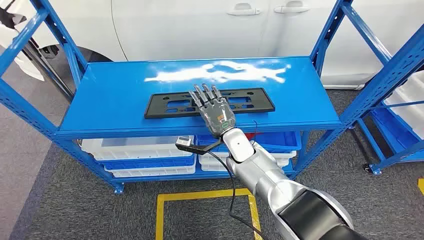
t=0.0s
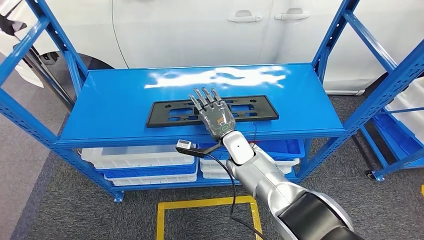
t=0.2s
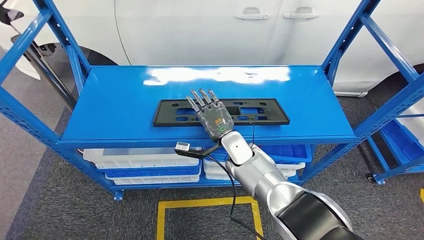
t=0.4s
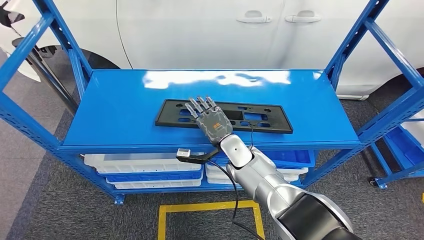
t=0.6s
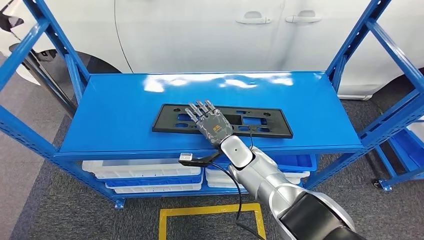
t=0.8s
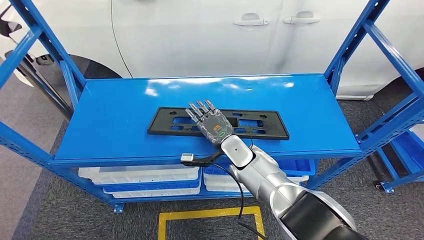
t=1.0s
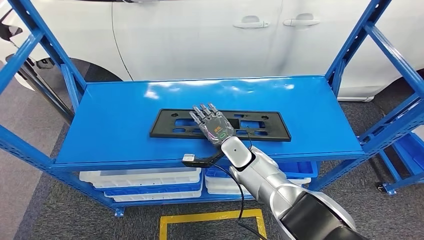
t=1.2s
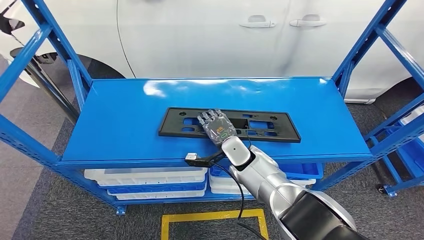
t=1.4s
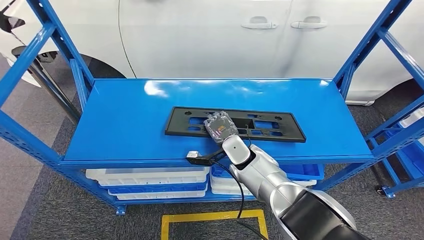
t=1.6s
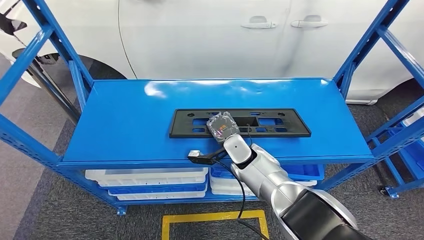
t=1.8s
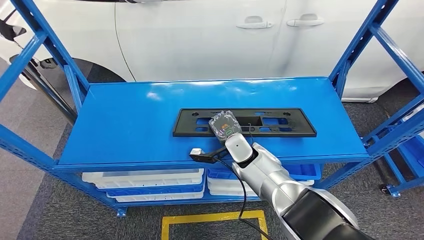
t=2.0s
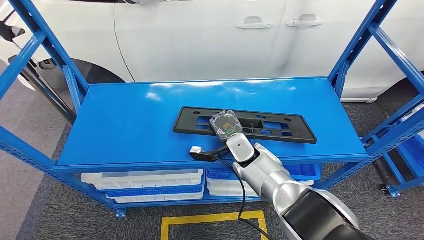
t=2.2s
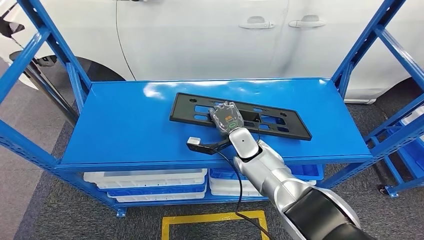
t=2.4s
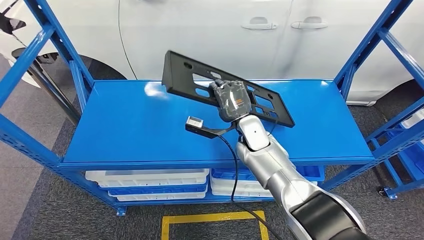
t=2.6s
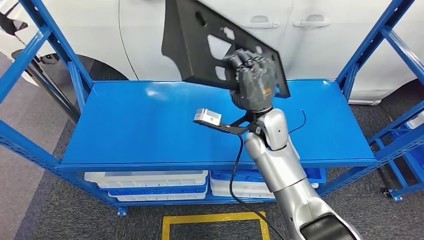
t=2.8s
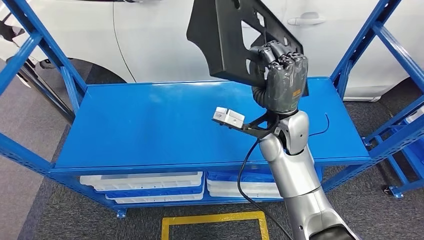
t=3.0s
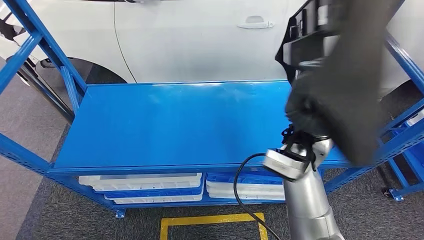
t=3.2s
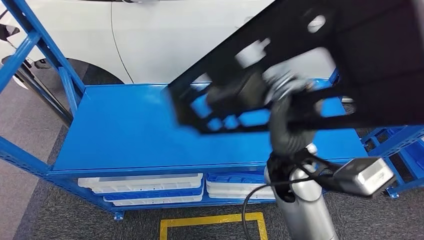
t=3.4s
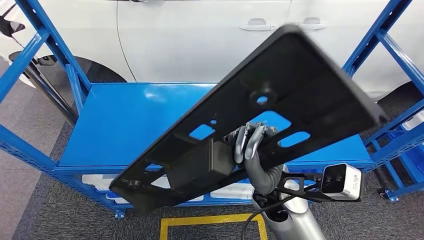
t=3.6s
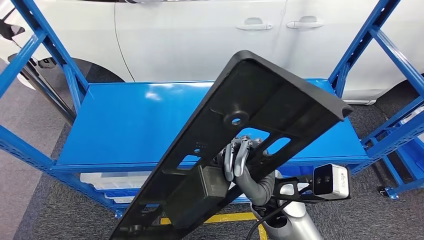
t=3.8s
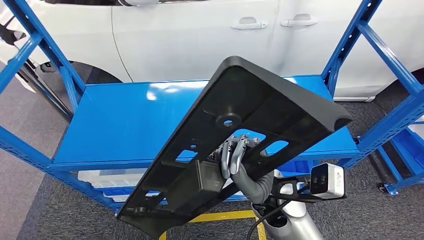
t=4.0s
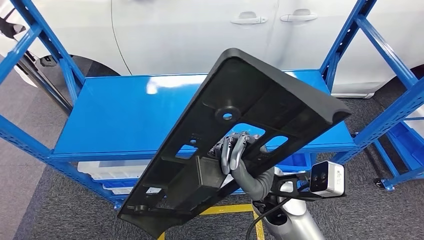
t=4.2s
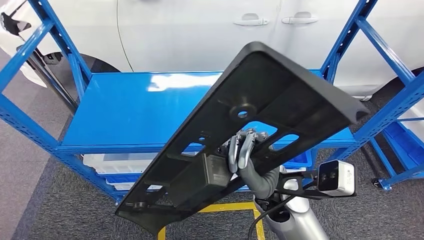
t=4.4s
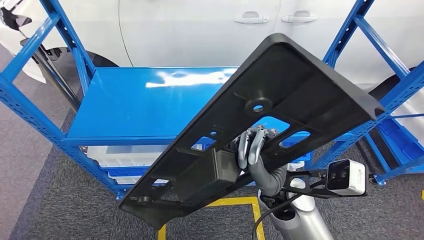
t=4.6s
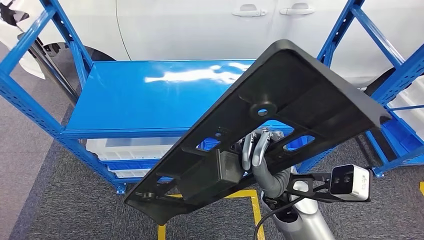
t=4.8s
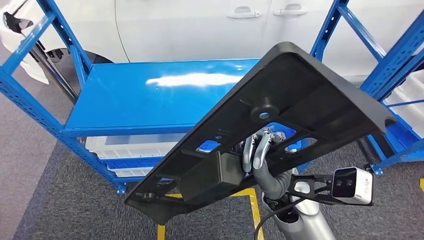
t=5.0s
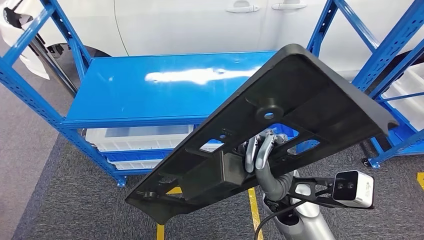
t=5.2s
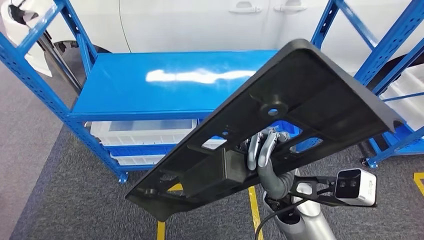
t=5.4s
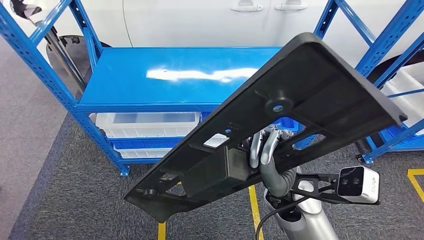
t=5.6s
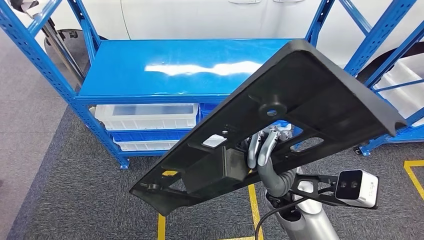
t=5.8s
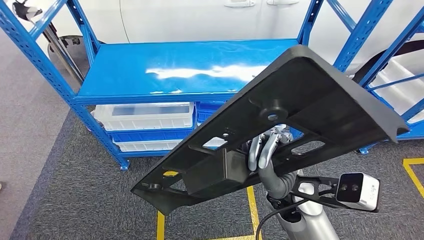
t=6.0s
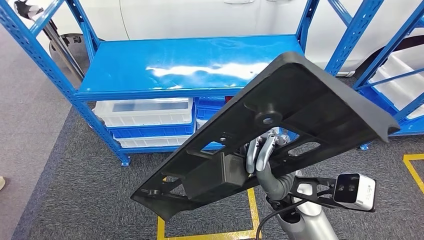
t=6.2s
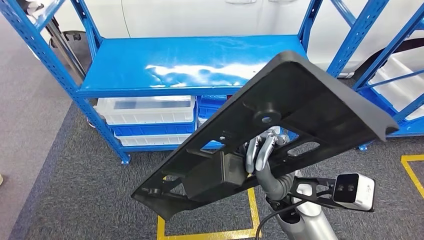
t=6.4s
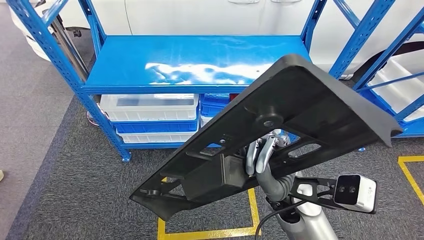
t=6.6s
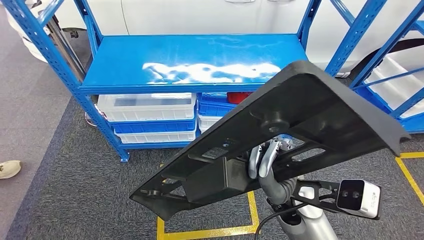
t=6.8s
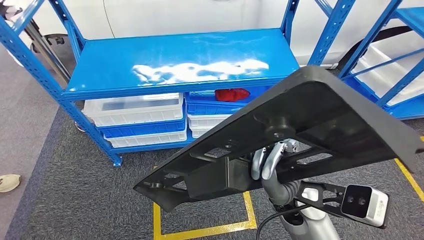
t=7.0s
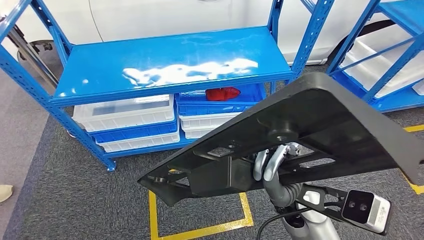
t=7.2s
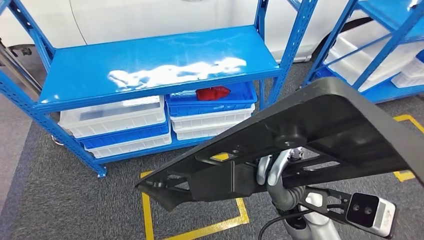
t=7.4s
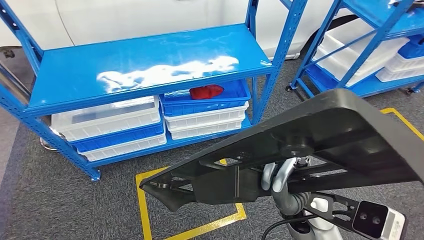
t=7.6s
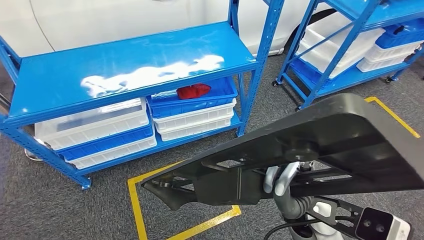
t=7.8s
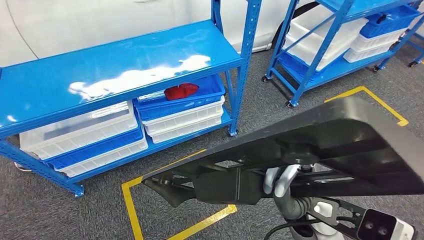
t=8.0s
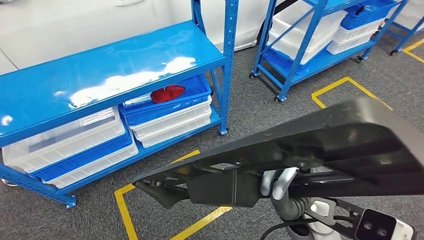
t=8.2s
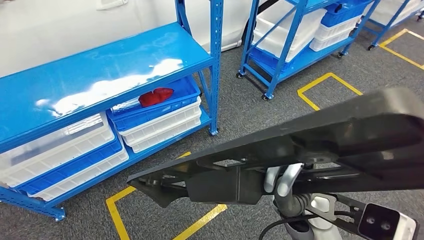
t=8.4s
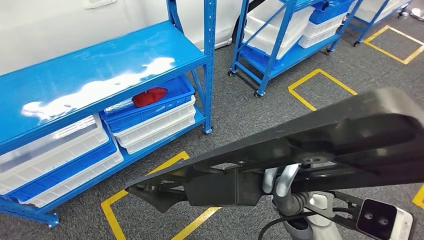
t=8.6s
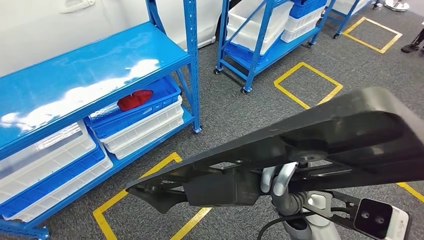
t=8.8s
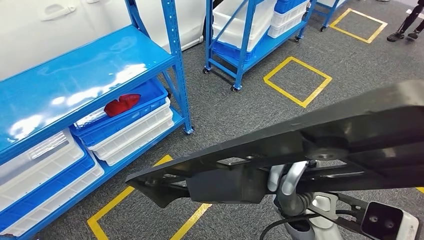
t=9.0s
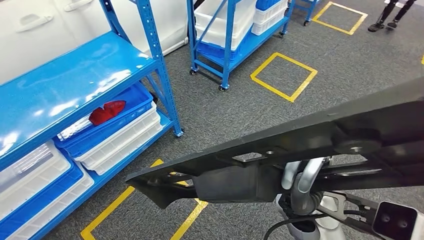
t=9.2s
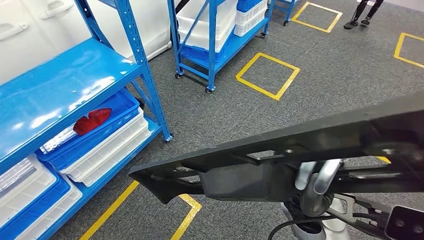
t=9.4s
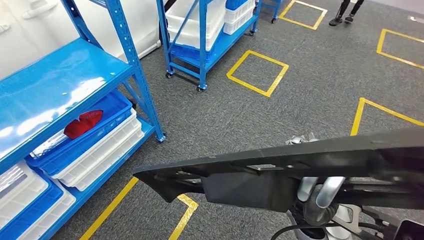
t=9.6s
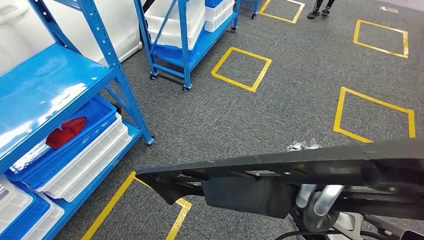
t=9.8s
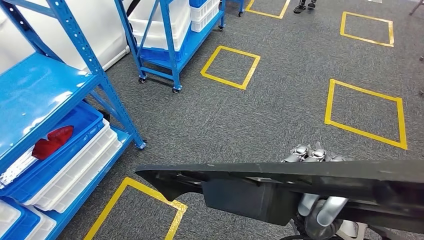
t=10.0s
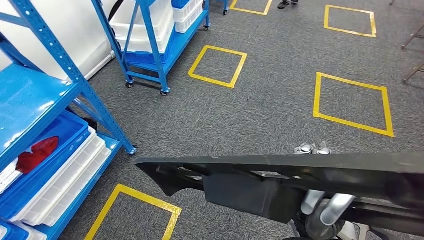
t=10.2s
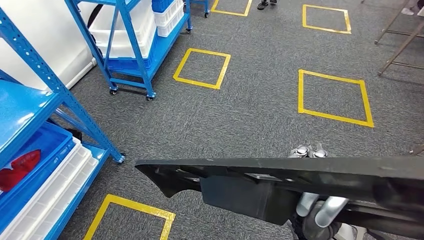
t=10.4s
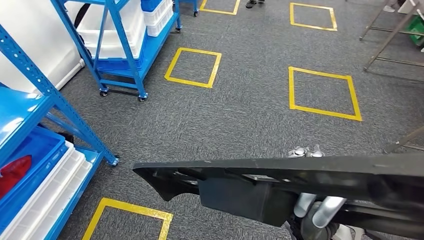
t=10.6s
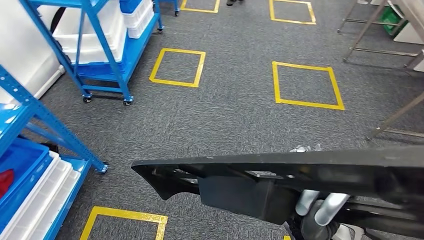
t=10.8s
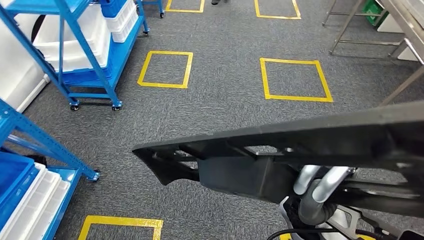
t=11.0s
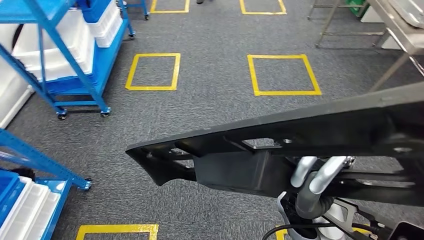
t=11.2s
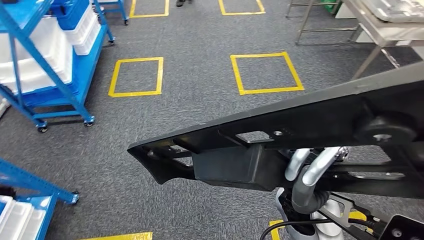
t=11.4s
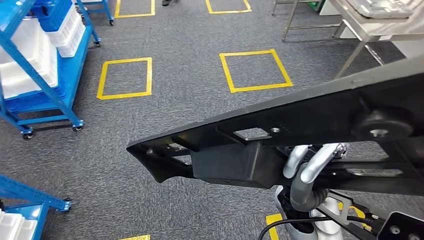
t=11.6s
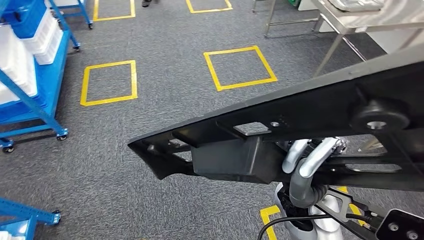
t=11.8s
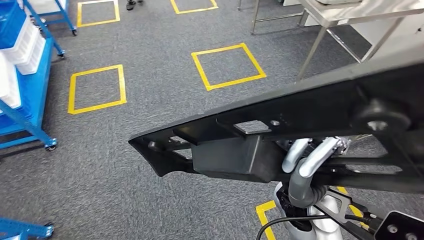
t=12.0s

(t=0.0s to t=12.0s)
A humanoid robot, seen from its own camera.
Step, t=0.0s - t=3.0s: Pick up the large material from the shelf.

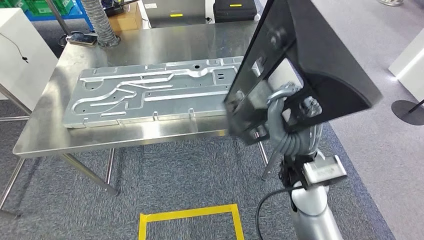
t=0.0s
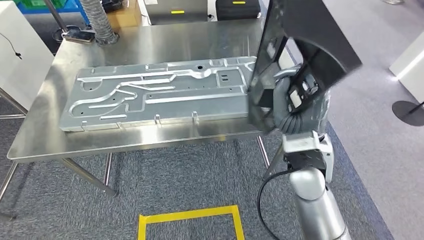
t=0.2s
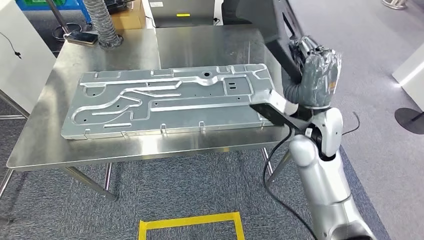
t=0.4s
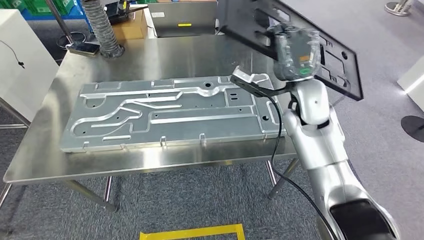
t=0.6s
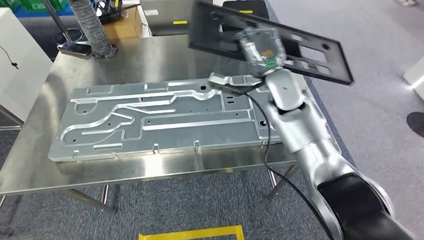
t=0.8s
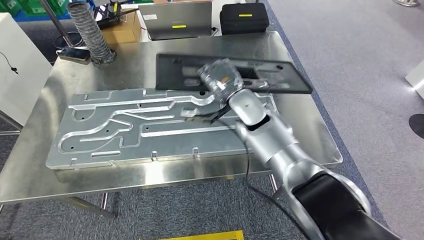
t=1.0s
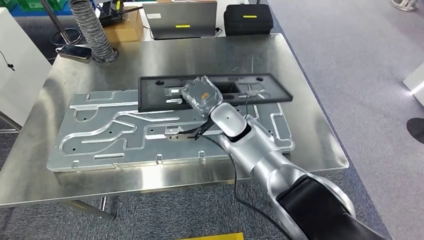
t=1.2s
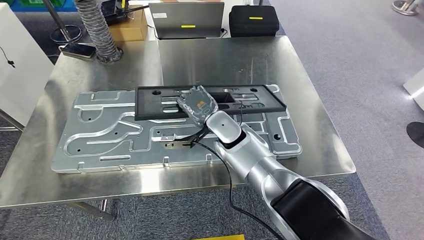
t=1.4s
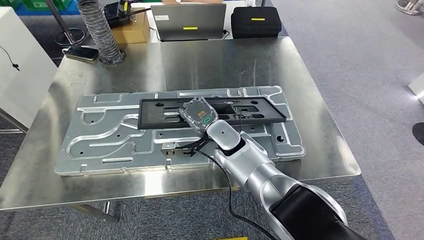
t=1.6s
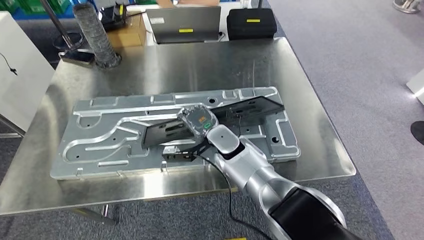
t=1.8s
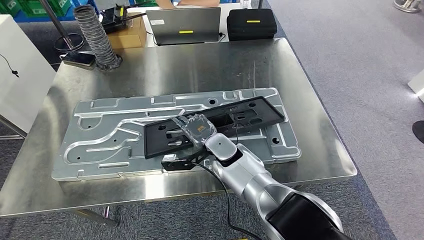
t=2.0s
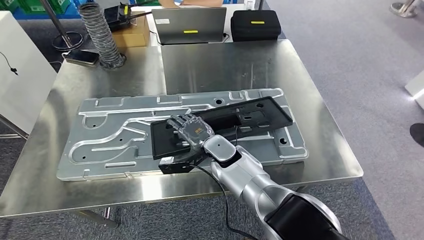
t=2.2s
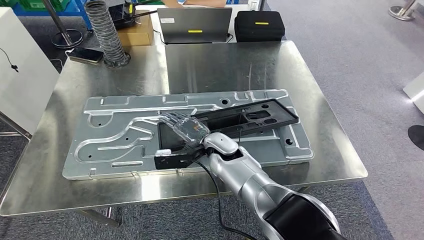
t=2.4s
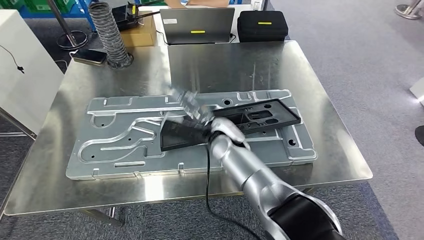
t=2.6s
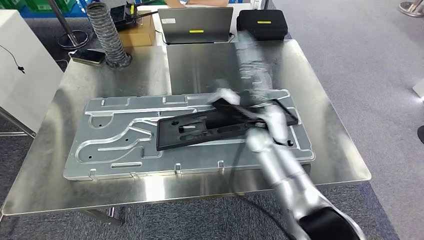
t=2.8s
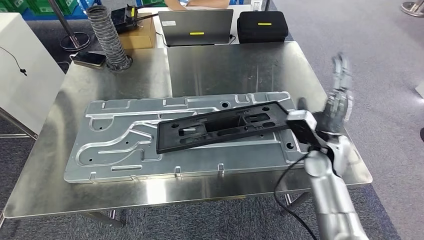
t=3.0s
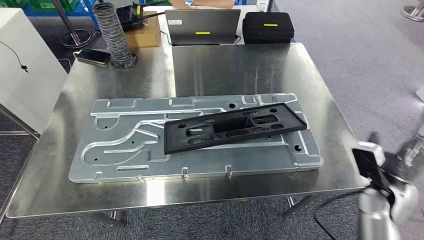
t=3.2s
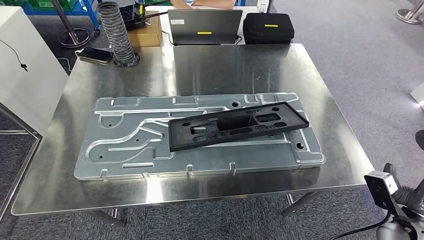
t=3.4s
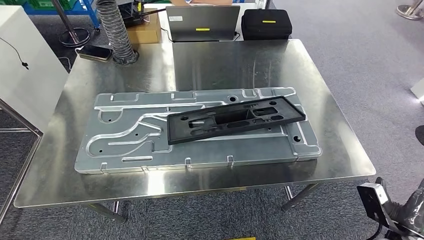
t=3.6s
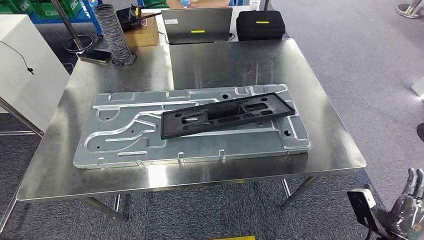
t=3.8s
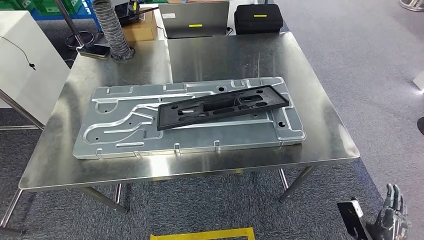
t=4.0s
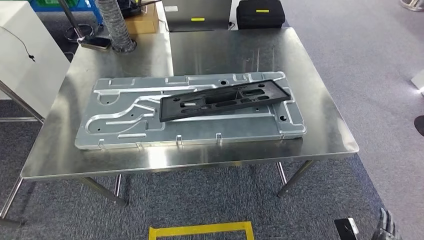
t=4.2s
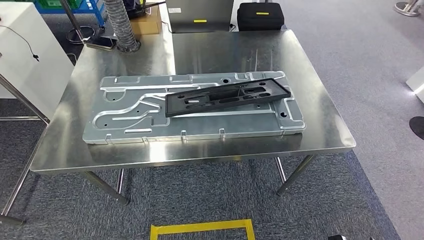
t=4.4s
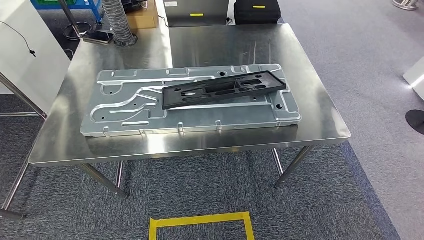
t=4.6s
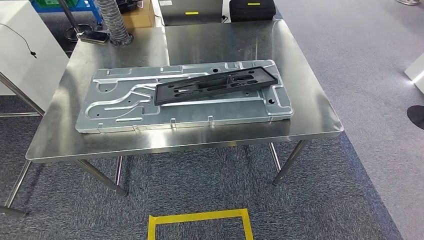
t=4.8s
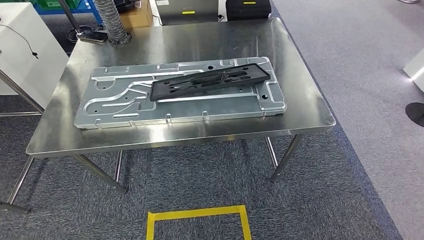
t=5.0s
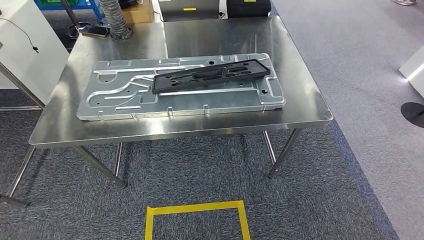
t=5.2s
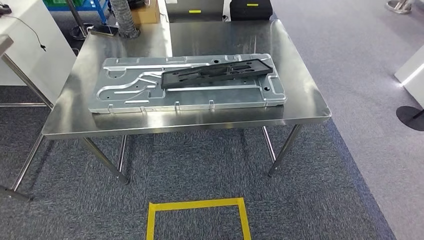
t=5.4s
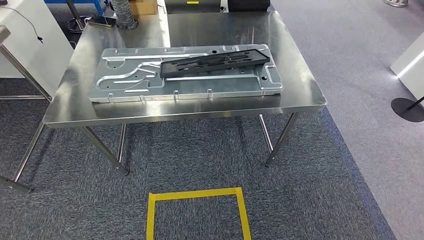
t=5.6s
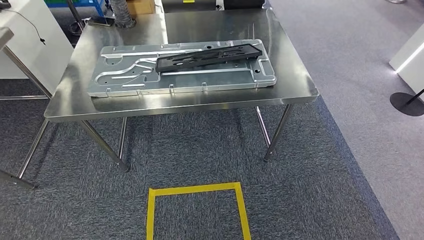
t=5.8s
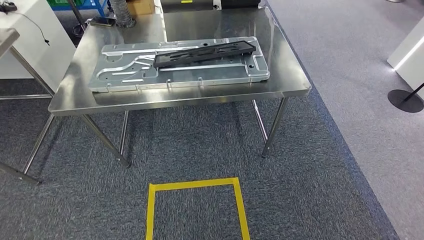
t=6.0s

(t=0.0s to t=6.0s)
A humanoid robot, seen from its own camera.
Step, t=1.6s - t=4.0s: Insert the large material into the corresponding slot on the workbench.
